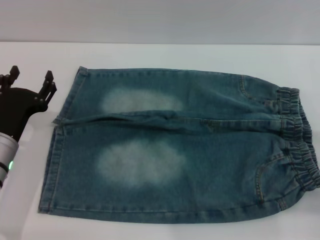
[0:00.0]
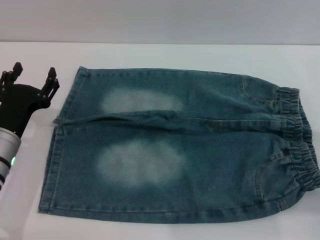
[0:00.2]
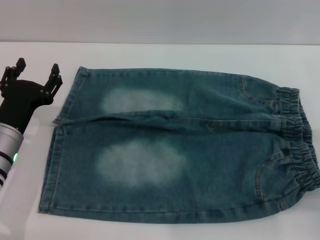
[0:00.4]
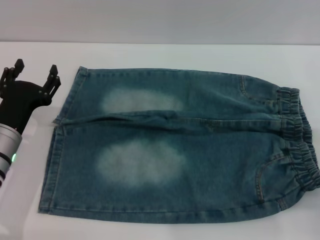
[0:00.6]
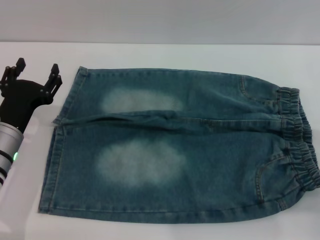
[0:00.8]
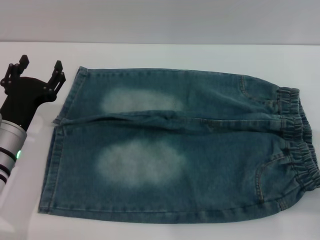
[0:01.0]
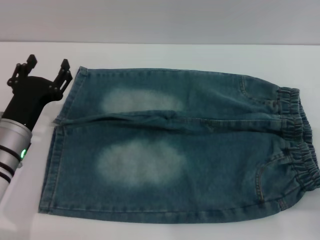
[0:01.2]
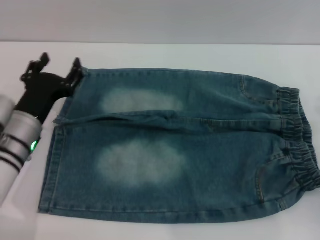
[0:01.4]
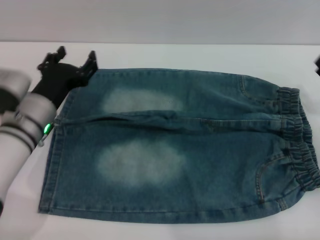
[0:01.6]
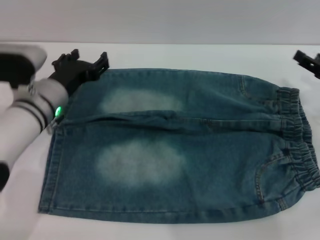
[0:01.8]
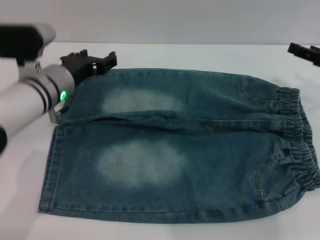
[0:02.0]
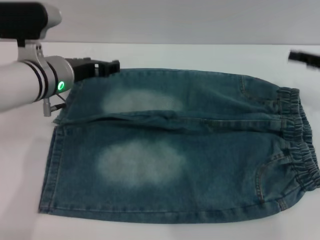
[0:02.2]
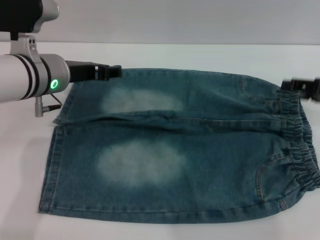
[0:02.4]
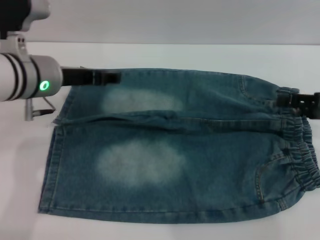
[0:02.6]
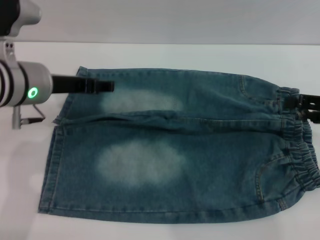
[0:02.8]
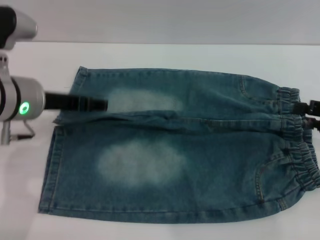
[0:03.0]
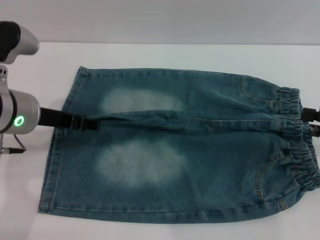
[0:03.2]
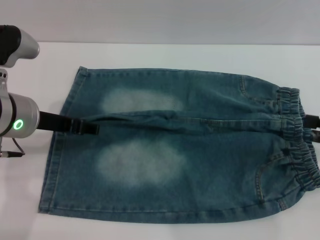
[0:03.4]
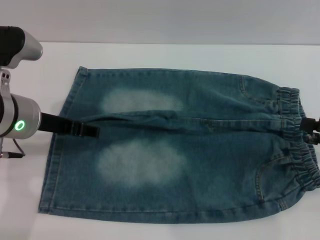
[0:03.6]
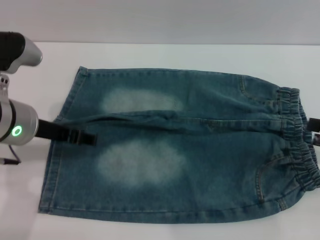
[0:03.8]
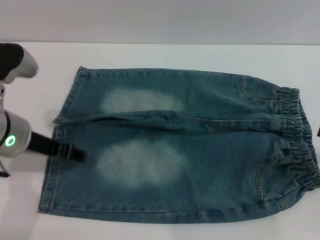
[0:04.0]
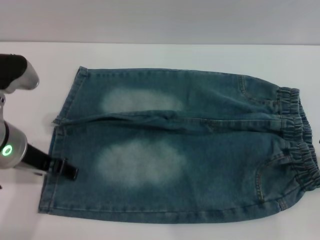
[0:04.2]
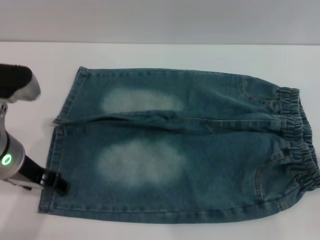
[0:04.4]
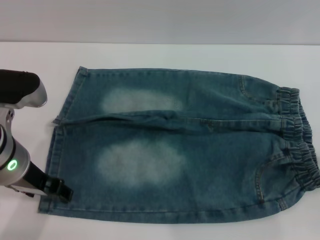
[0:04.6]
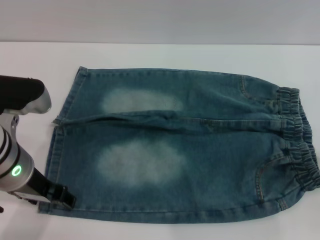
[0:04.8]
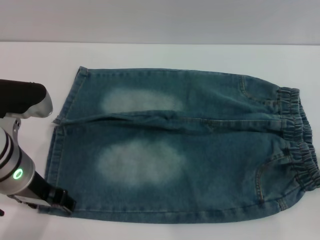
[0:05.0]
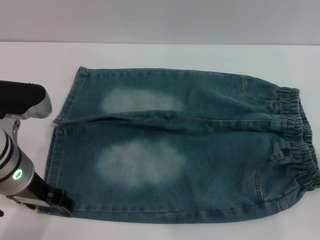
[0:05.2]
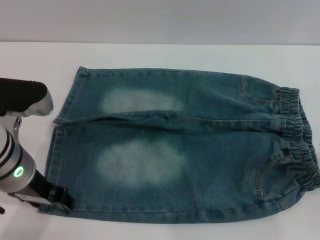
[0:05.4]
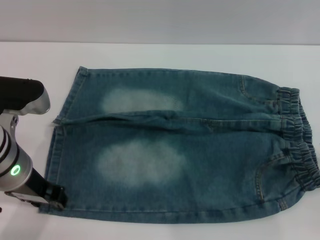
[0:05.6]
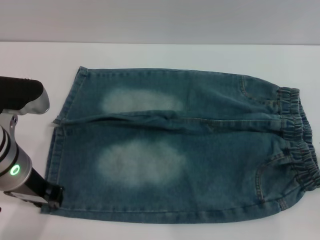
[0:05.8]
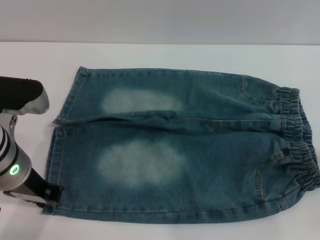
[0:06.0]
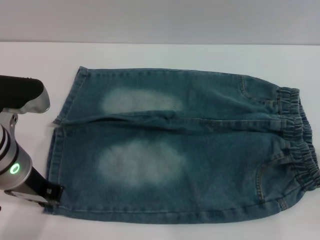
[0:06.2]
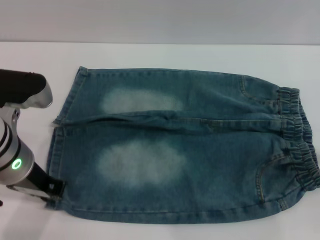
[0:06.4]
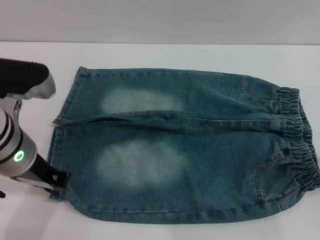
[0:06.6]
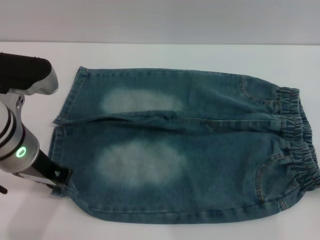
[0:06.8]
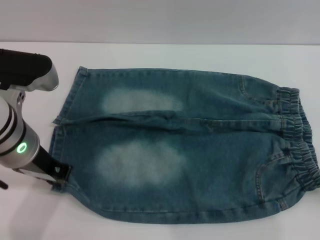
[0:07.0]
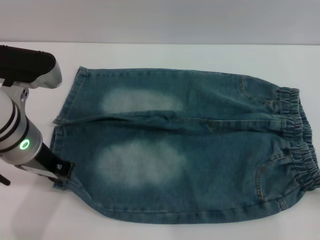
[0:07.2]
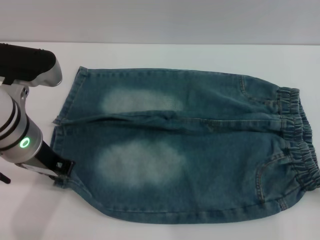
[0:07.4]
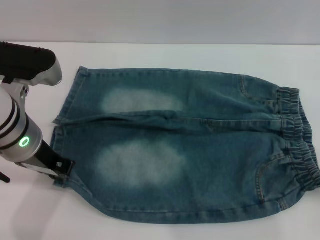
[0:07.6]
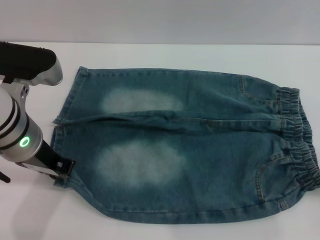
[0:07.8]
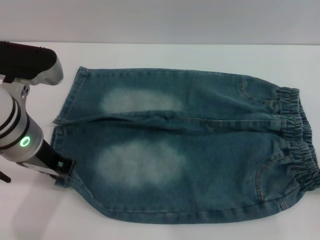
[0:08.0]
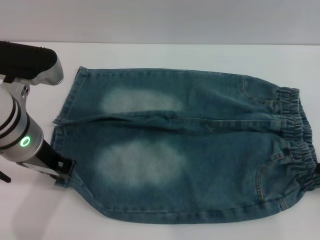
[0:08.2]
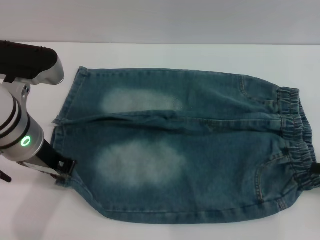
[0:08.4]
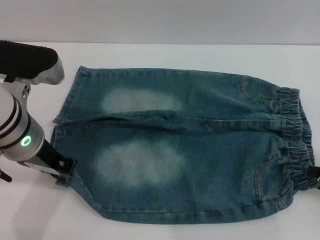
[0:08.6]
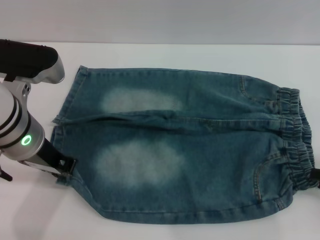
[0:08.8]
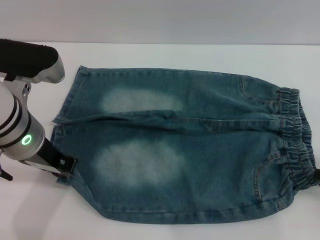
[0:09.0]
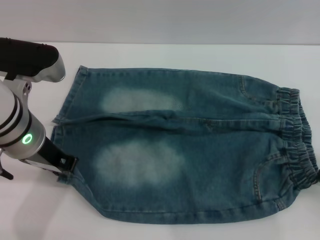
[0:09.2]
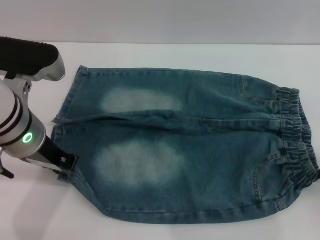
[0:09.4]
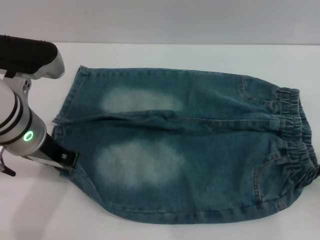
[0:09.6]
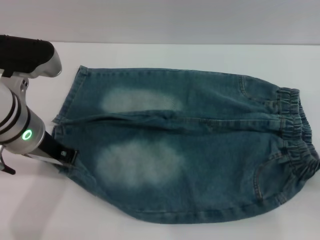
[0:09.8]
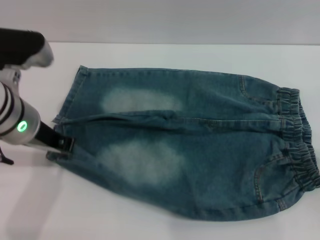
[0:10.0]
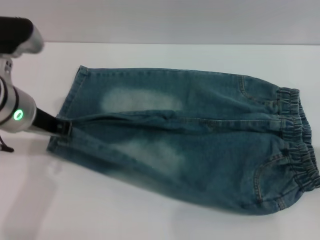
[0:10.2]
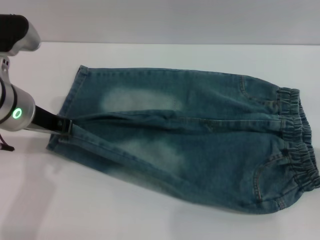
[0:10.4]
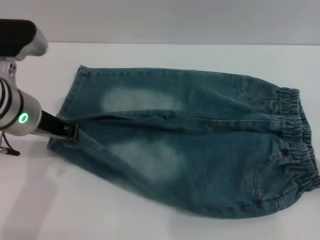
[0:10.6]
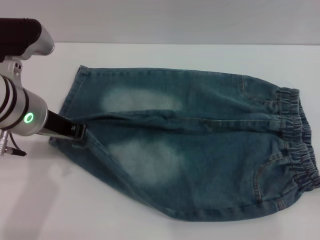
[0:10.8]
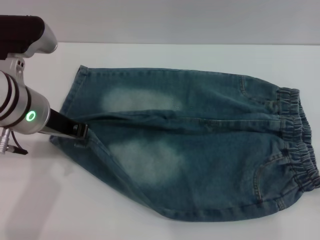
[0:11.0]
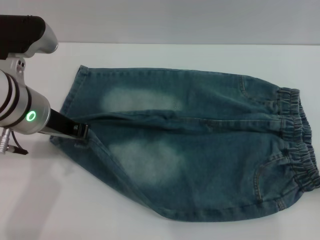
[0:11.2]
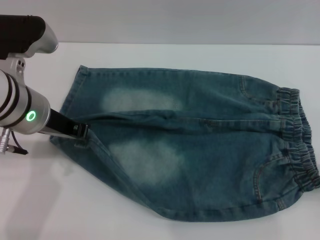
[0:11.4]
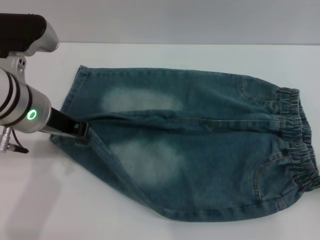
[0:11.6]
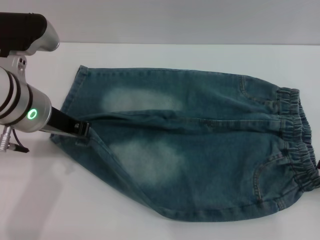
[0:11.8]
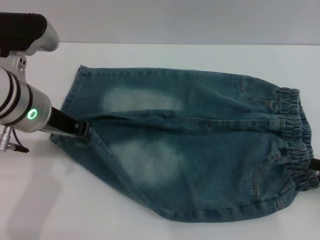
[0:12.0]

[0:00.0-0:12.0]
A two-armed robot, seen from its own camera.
0:00.0 to 0:01.6: The grippers both shift forward by some 5 cm.
0:01.6 to 0:03.0: Both grippers travel together upward, some 10 cm.
0:03.0 to 0:04.4: The right gripper moves backward, some 5 cm.
0:04.4 to 0:06.0: The left gripper closes its fingers.
0:06.0 to 0:07.6: The left gripper closes its fingers.
0:07.6 to 0:09.0: The grippers move only a little.
0:09.0 to 0:10.4: The right gripper closes its fingers.
0:10.4 to 0:12.0: The right gripper opens.

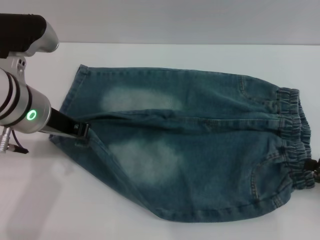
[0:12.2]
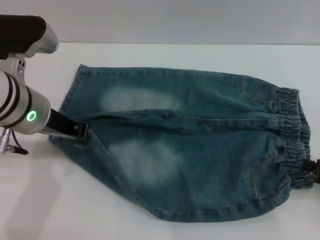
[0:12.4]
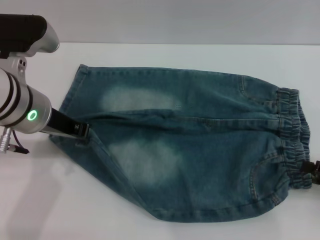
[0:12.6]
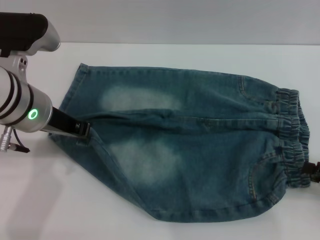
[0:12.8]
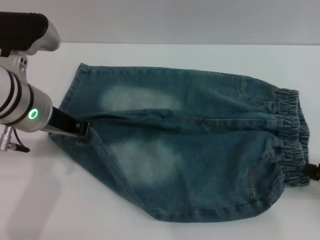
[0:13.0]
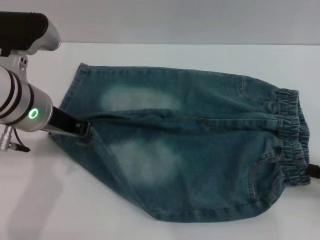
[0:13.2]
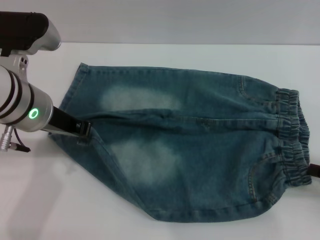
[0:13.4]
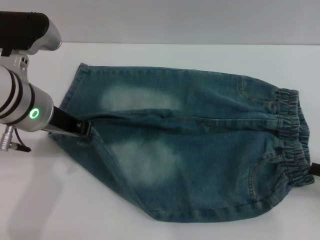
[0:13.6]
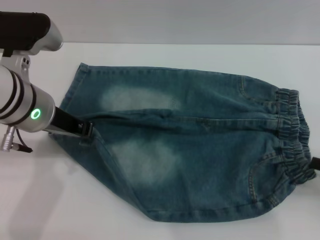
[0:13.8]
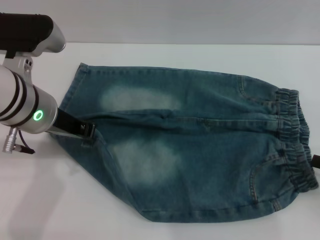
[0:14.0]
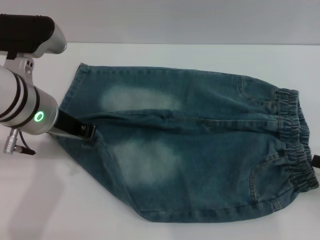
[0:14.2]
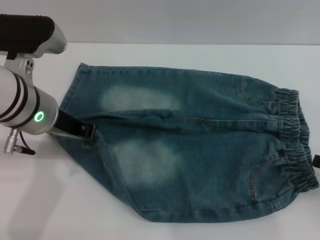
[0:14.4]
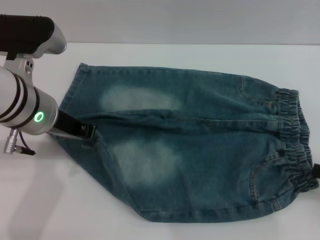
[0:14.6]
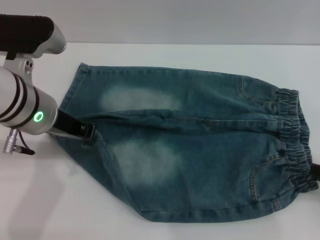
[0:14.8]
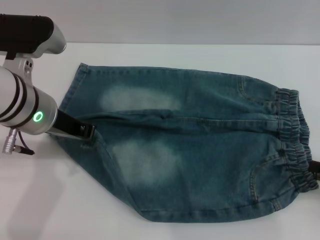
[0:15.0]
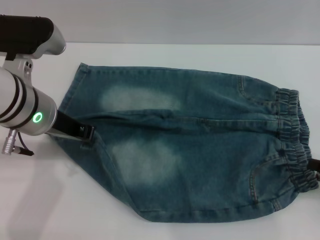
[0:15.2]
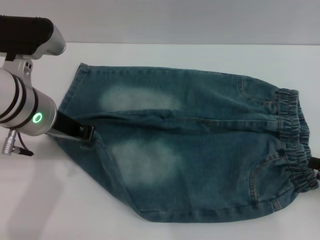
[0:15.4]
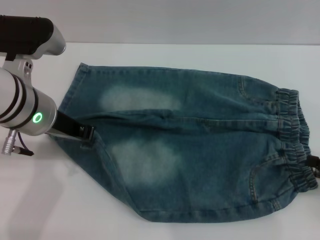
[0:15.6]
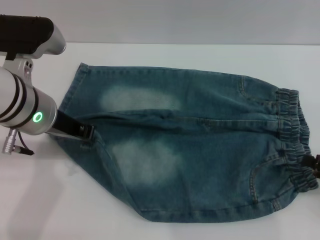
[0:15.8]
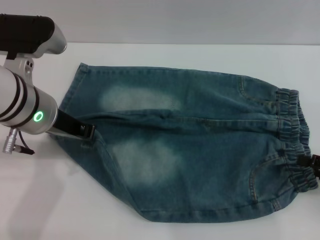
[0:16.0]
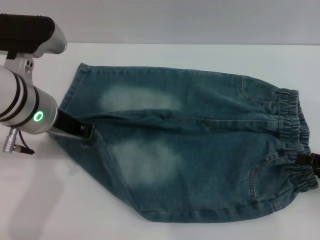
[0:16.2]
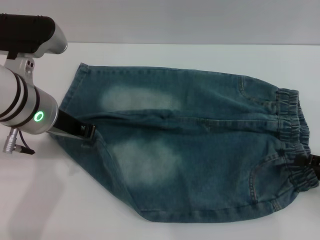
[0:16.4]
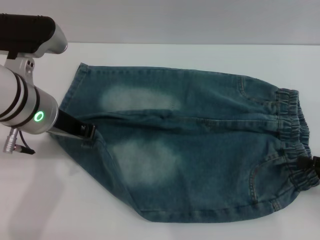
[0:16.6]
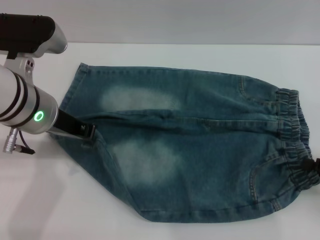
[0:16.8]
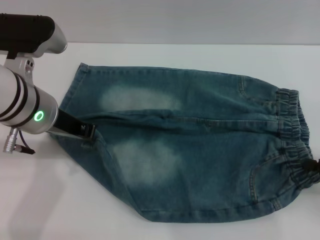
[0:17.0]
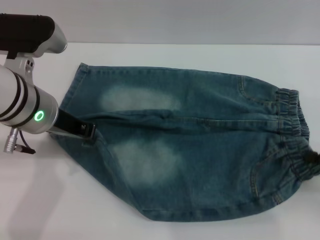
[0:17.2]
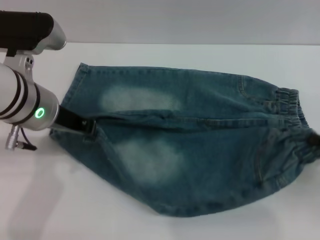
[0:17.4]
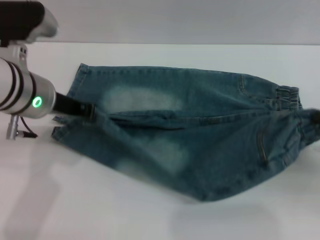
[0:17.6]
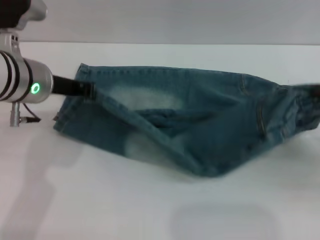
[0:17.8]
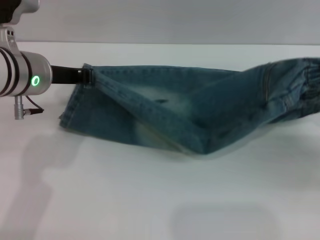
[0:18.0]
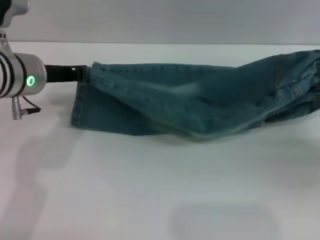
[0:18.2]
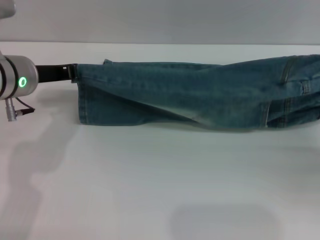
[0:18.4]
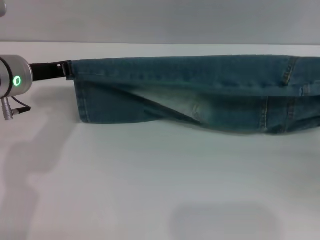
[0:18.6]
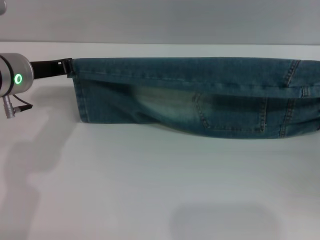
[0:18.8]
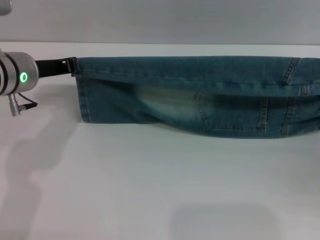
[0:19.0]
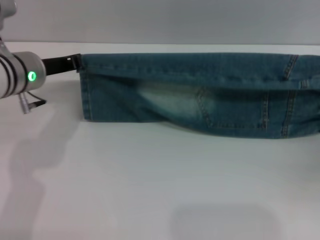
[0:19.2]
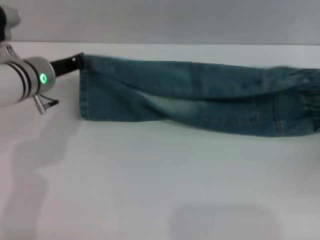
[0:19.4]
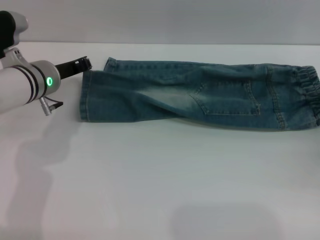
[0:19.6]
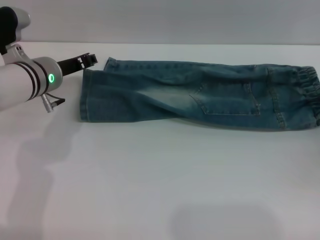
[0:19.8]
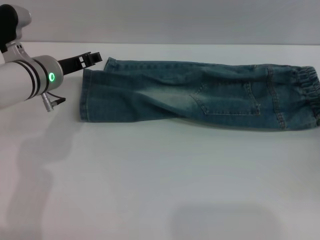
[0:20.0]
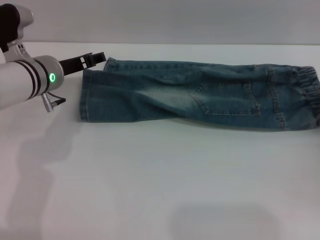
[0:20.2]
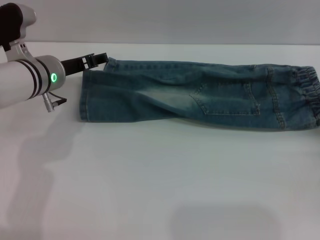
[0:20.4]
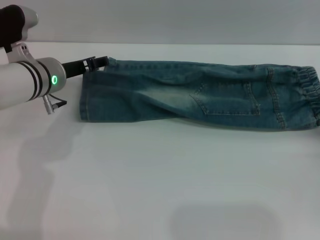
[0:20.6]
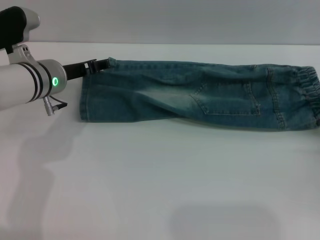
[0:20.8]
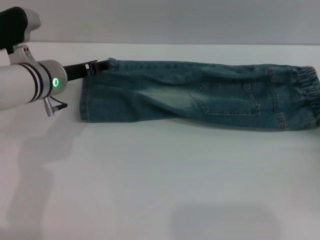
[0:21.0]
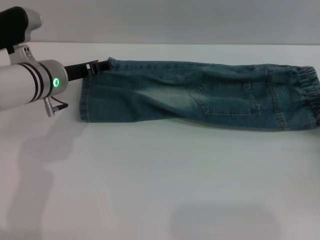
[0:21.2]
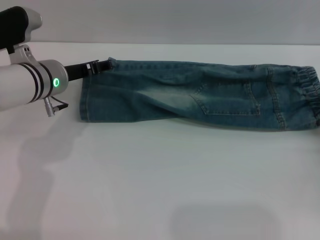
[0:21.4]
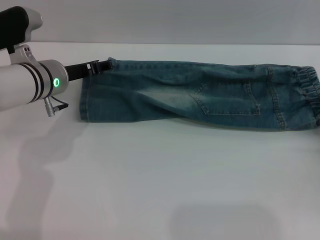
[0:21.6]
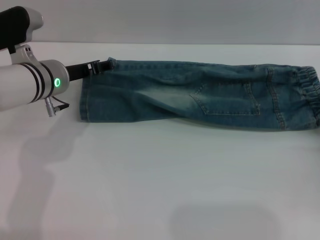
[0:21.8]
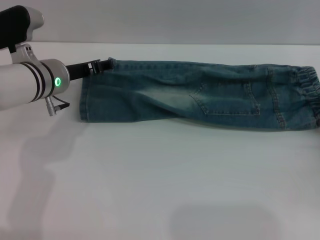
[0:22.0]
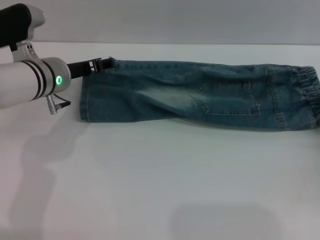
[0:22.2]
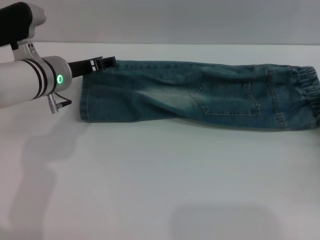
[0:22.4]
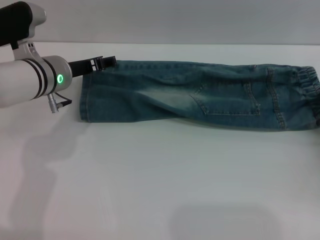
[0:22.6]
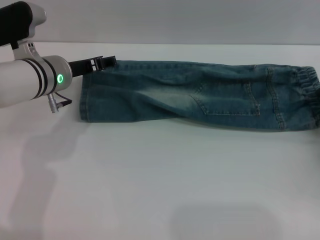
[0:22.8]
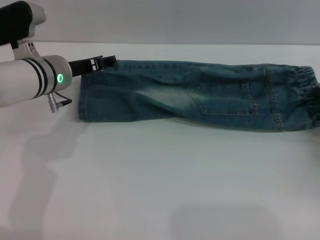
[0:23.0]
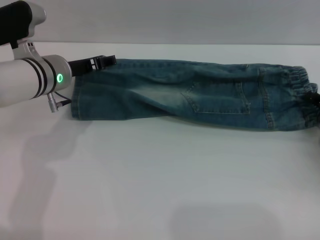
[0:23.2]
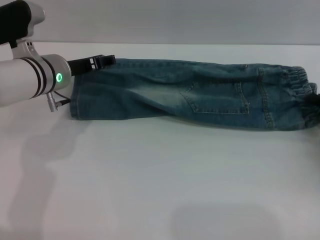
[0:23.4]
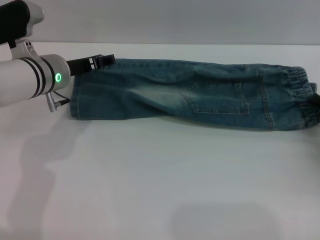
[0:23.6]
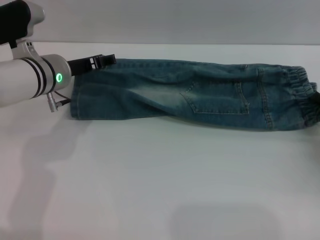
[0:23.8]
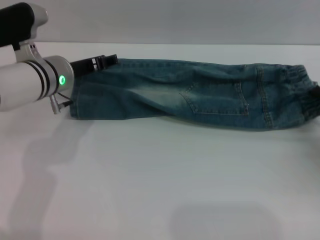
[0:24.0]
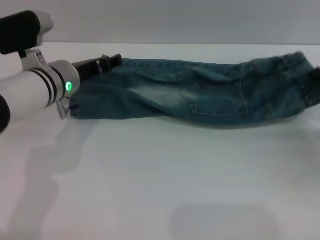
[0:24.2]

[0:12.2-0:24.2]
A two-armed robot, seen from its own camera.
Step, 0:12.2 to 0:22.0: Fold the bottom of the pants upward with both grippers.
0:12.2 to 0:13.8: The right gripper closes up.
0:13.8 to 0:15.2: The right gripper opens its fingers.
0:15.2 to 0:16.6: The grippers make only small movements.
0:16.6 to 0:18.2: The right gripper changes place by roughly 5 cm, and closes its fingers.
0:18.2 to 0:19.8: The left gripper travels downward and forward by about 10 cm.
0:19.8 to 0:21.2: The left gripper opens.
0:21.2 to 0:22.6: The grippers stay close to where they were, moving slightly.
0:22.6 to 0:24.2: The right gripper closes.
